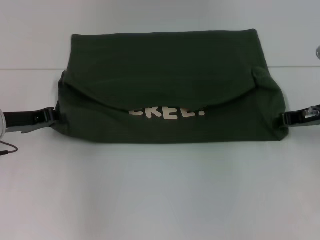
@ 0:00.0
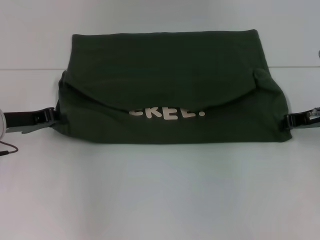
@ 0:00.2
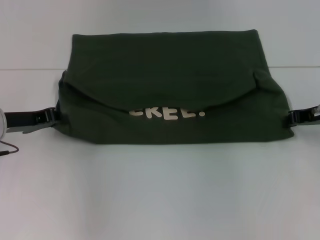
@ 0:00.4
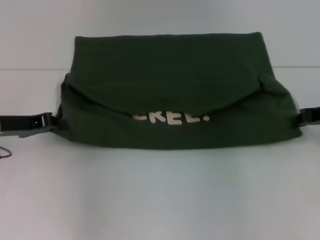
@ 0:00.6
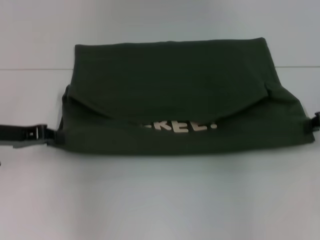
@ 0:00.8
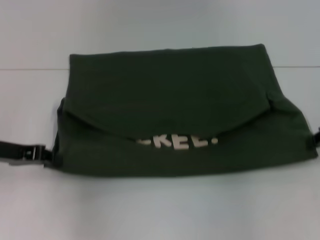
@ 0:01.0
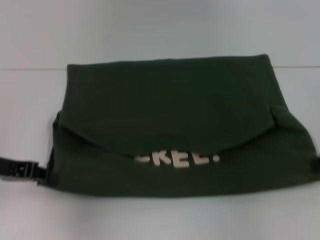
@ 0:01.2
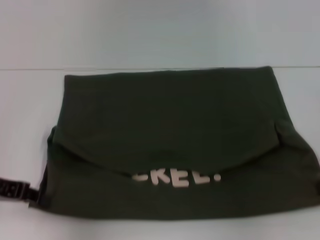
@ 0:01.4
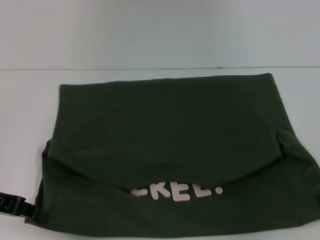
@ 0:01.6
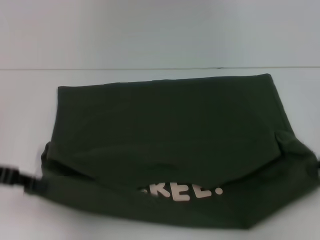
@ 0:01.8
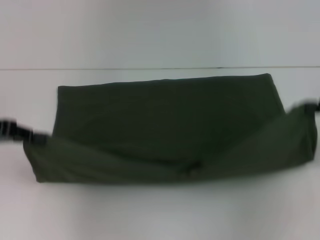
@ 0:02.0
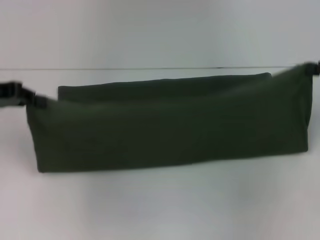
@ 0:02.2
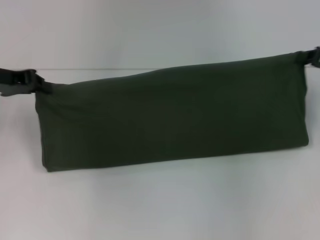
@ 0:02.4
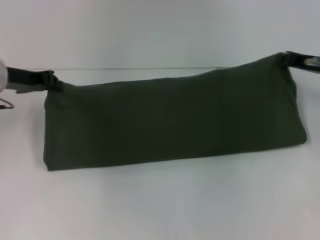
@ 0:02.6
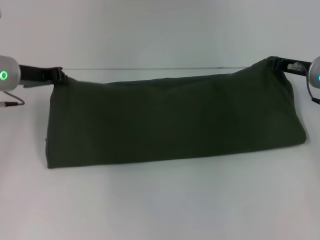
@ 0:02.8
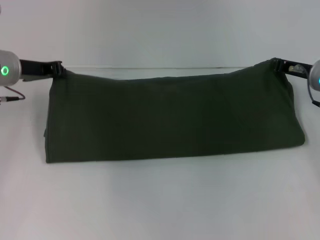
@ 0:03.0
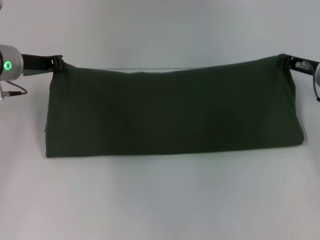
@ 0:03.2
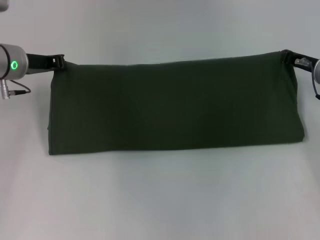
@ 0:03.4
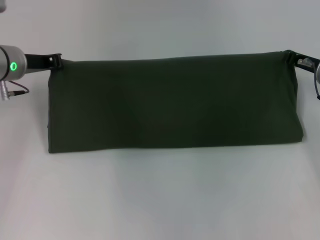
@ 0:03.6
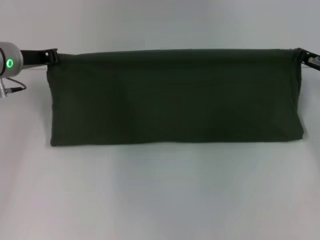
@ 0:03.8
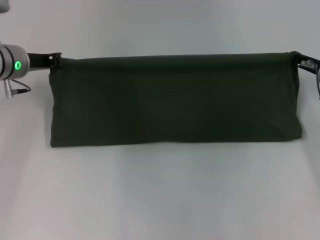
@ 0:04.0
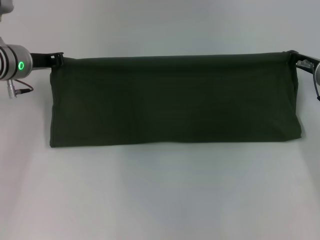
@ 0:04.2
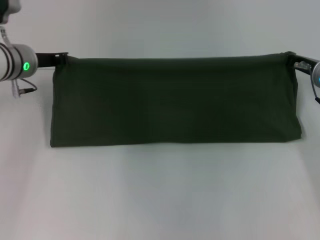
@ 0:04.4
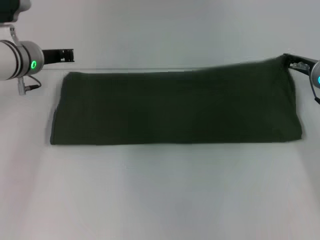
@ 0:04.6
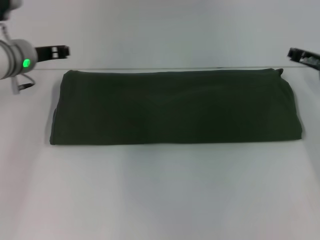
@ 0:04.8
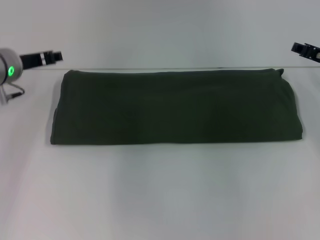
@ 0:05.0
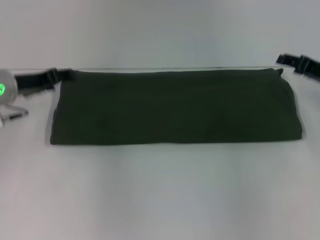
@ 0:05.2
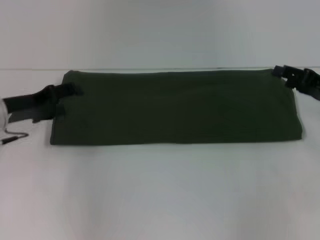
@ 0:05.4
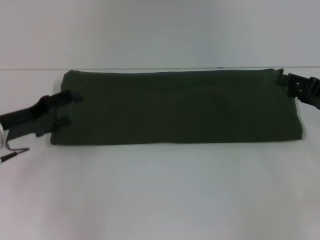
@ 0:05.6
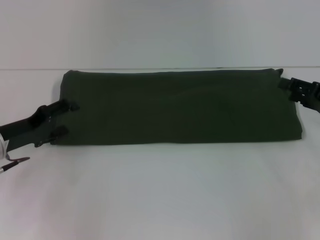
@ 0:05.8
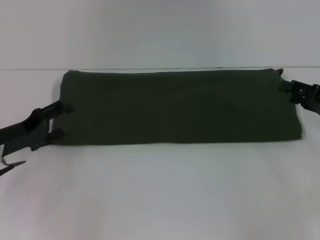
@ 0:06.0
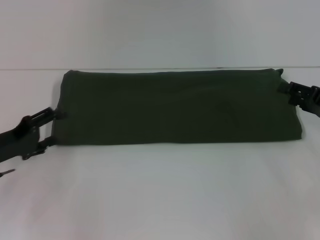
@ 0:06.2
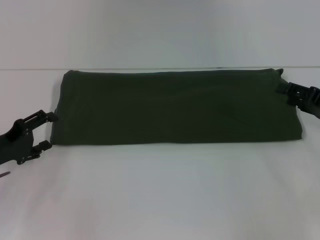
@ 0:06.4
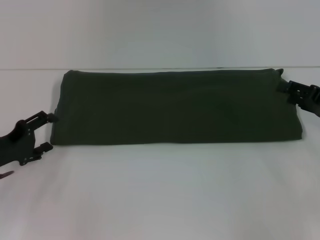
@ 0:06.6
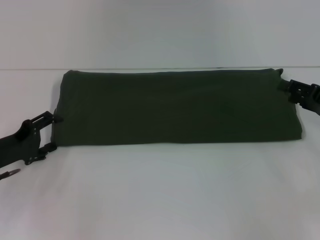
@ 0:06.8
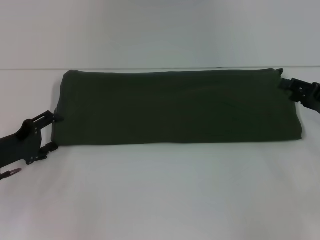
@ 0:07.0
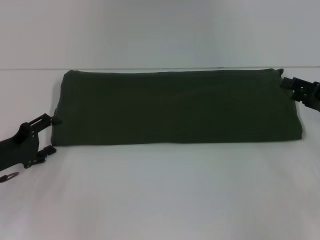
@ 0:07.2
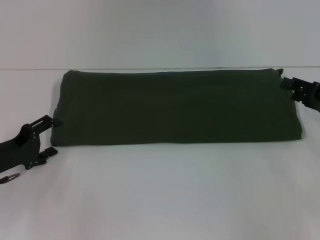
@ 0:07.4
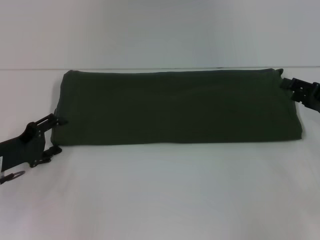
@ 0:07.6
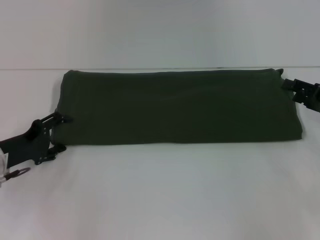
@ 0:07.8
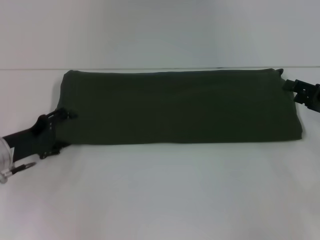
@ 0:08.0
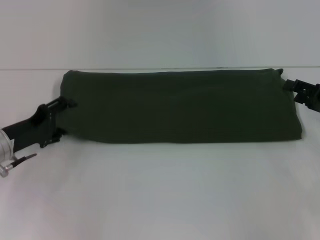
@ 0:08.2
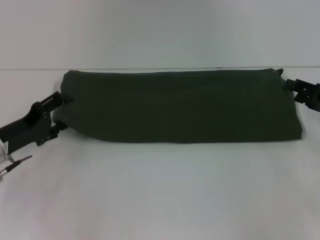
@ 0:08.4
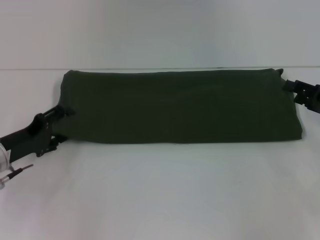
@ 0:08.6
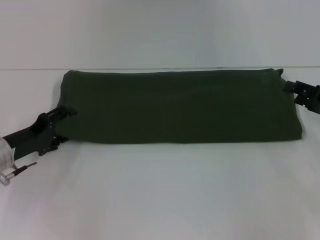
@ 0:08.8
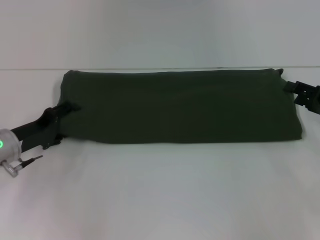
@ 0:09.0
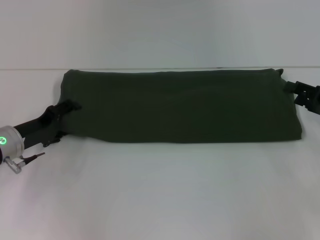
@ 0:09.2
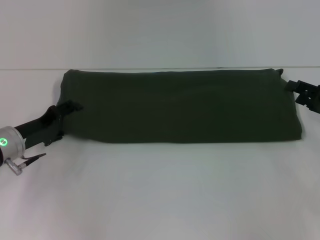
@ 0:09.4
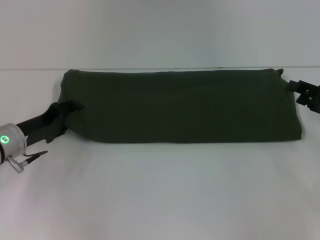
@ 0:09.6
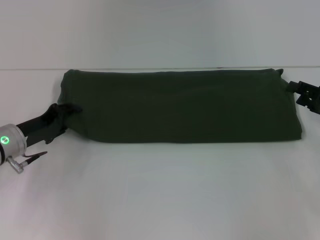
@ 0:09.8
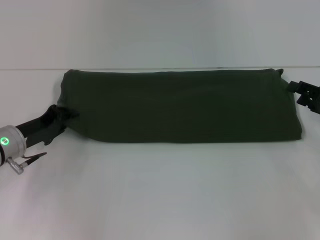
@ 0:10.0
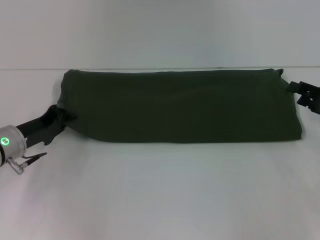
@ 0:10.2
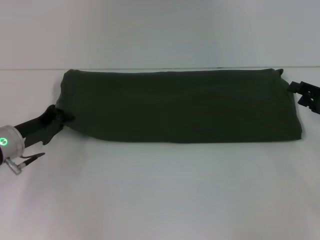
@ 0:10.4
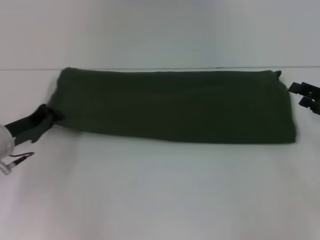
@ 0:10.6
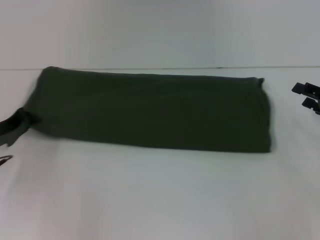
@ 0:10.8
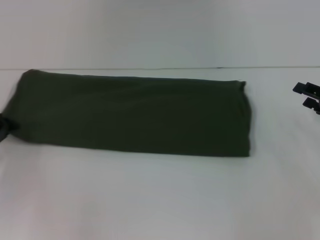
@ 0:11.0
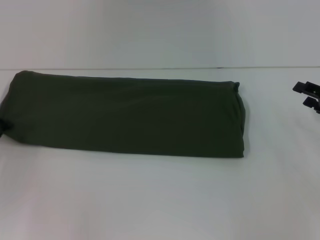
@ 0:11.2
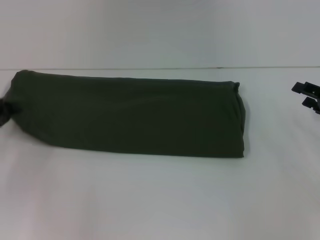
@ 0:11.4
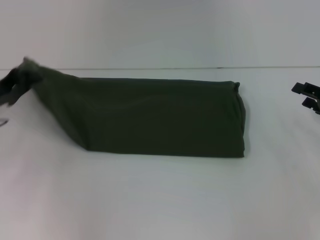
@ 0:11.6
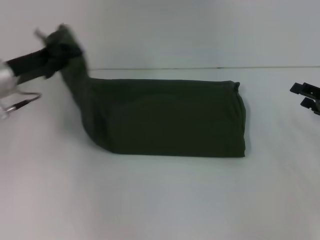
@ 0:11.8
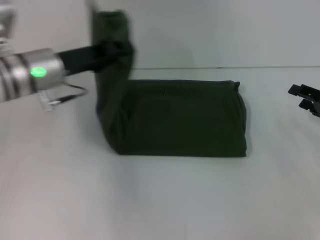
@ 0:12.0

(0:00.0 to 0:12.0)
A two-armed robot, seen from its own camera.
Step, 0:01.6 - 0:05.0: Fold the clothes with your right hand.
0:00.0 - 0:01.6: The left gripper goes approximately 10 cm backward, while the right gripper travels backward and to the right by roughly 10 cm.
0:01.6 - 0:03.0: The left gripper moves forward, some 15 cm, while the right gripper shifts about 15 cm forward and to the left.
0:03.0 - 0:04.4: The grippers stay close to where they were, moving slightly.
0:04.4 - 0:06.0: The right gripper goes approximately 10 cm backward and to the right, and opens. Meanwhile the left gripper travels backward, downward and to the left by roughly 15 cm, and opens up.
0:06.0 - 0:09.0: The grippers stay close to where they were, moving slightly.
0:09.0 - 0:10.4: The left gripper closes its fingers.
0:10.4 - 0:12.0: The left gripper goes approximately 15 cm upward, to the right and forward.

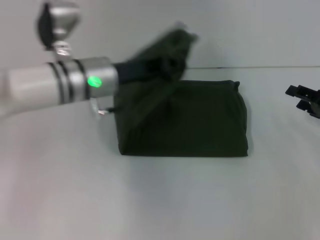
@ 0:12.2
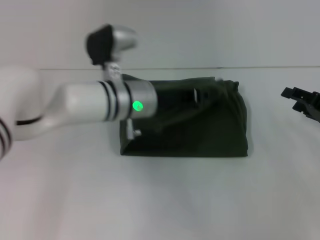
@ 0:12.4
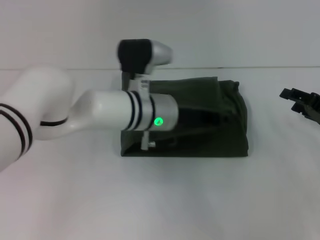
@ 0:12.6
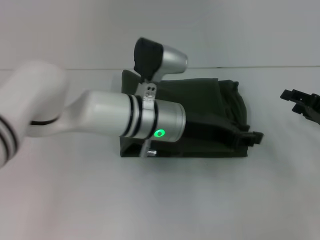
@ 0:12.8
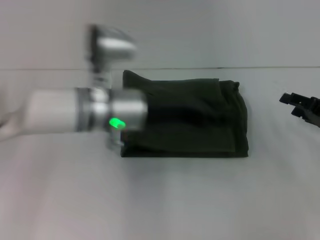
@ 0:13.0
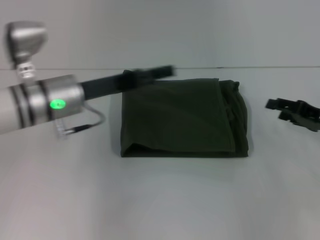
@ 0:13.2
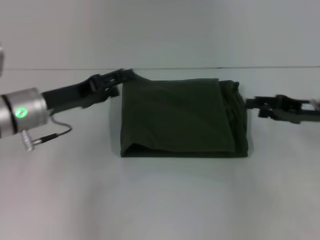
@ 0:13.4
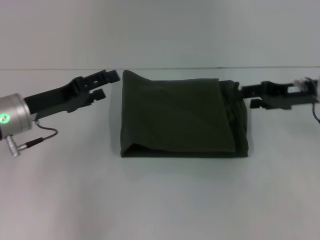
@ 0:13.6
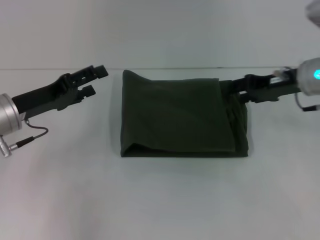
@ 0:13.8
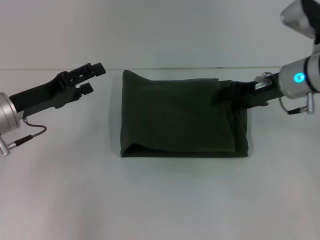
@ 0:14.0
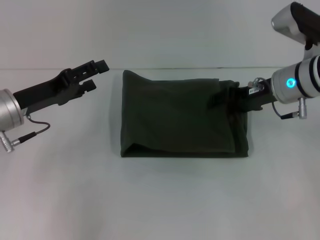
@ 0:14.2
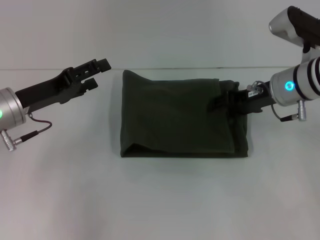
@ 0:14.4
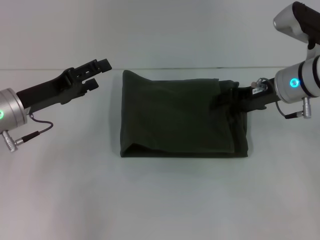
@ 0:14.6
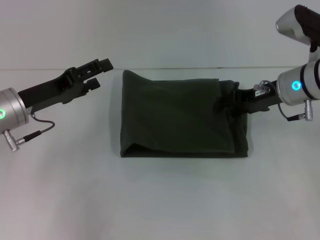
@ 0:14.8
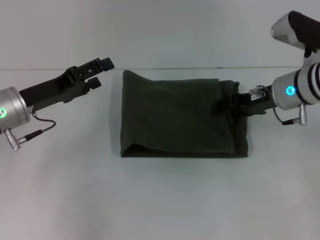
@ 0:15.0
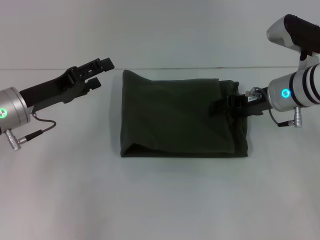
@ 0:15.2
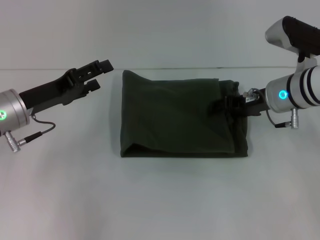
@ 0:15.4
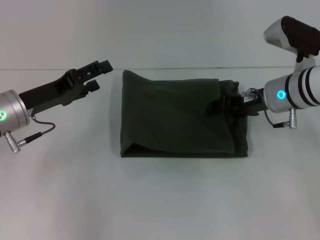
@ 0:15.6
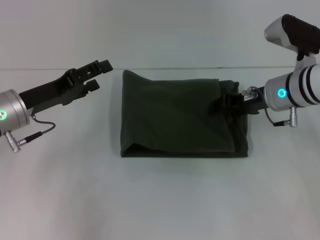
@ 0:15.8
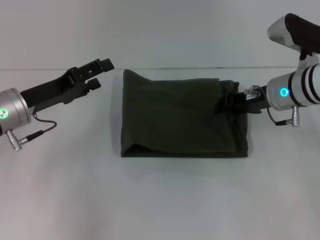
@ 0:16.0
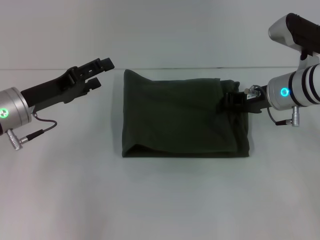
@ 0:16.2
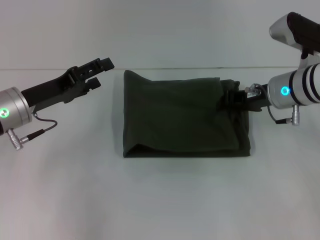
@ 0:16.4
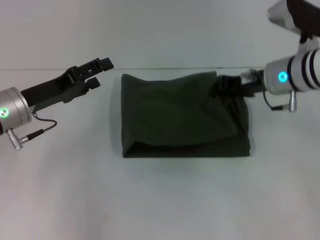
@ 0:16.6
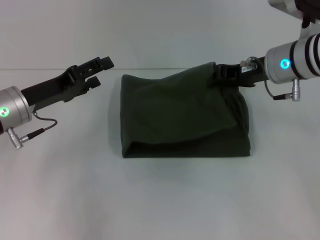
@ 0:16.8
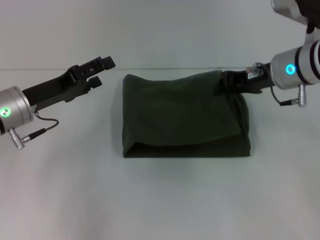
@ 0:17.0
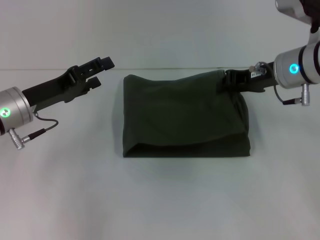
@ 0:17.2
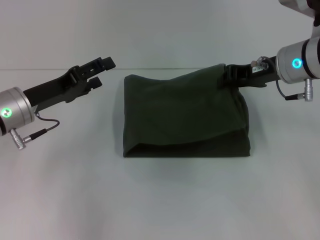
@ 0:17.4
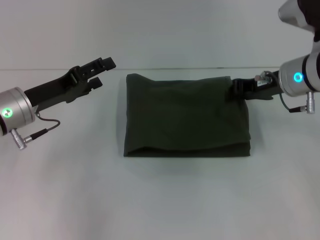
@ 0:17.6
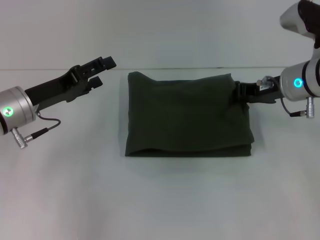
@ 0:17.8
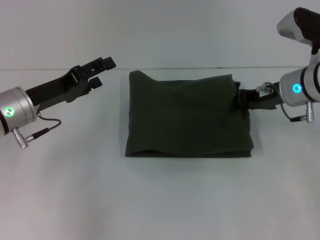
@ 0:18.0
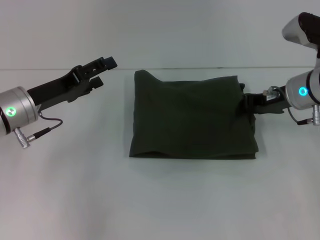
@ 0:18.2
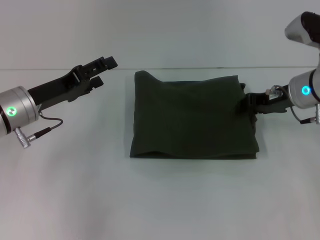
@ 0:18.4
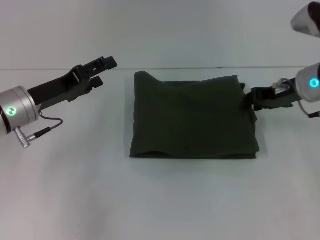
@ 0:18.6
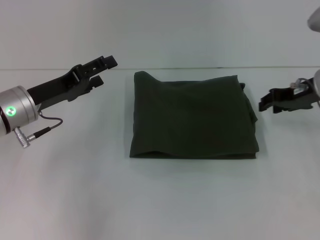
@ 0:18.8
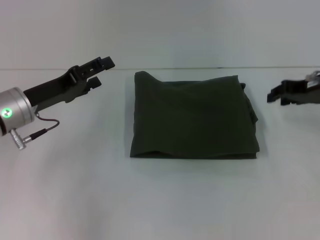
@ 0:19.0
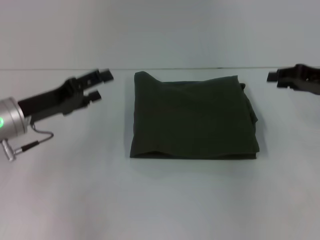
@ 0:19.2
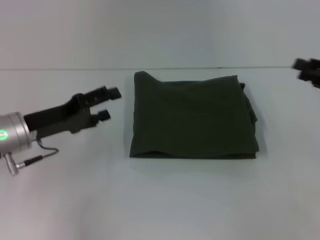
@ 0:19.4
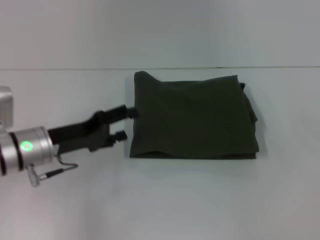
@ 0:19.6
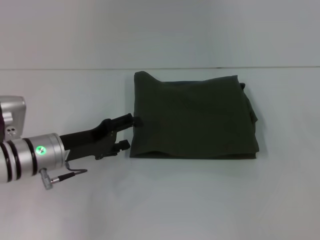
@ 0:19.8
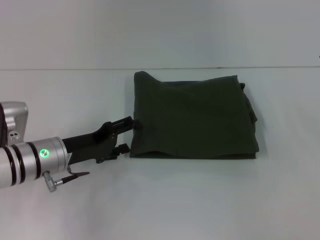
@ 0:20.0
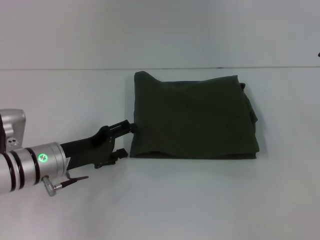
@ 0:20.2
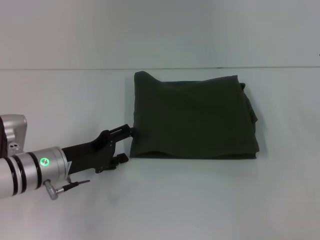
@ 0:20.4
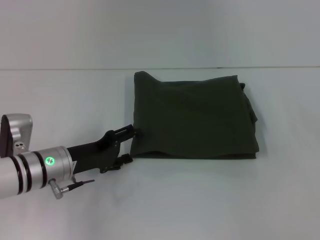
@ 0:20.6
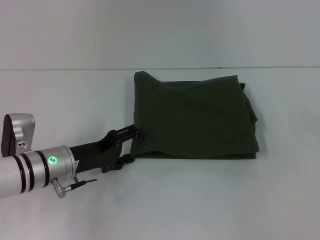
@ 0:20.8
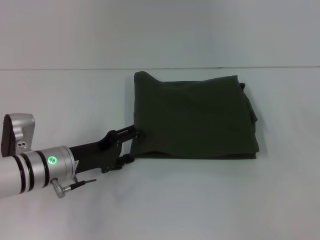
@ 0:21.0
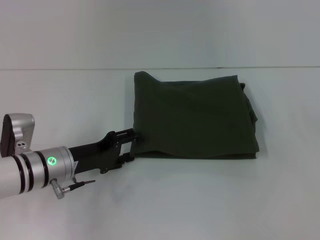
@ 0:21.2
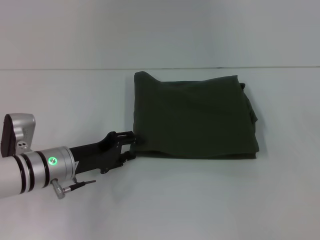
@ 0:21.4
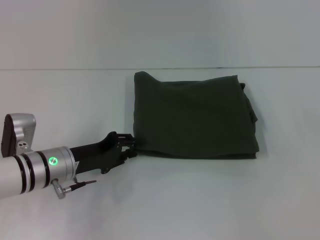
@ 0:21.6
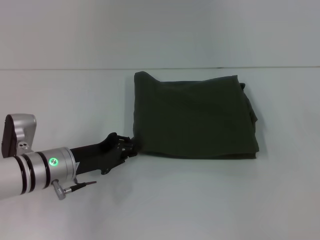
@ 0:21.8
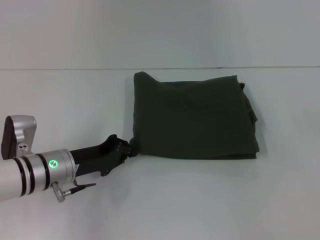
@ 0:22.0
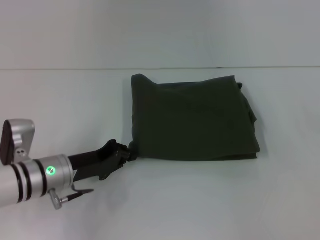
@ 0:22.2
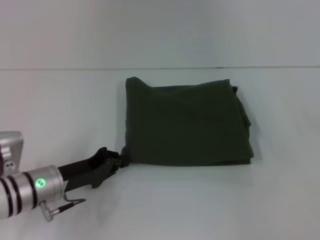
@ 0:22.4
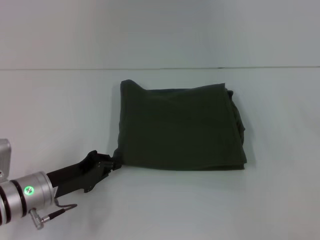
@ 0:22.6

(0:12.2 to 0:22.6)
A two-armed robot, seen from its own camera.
0:12.2 - 0:13.6: The left gripper goes some 15 cm to the left and backward, and opens up, while the right gripper heads to the left, forward and upward, covering about 10 cm.
0:13.6 - 0:15.2: The right gripper travels to the left by about 5 cm.
0:15.2 - 0:16.6: The right gripper closes its fingers.
0:16.6 - 0:18.2: The grippers stay close to where they were, moving slightly.
0:18.2 - 0:19.6: The right gripper shifts roughly 20 cm to the right and backward.
0:19.6 - 0:21.2: The right gripper opens its fingers.
0:21.2 - 0:22.6: The left gripper ends up some 5 cm from where it was, and closes.
